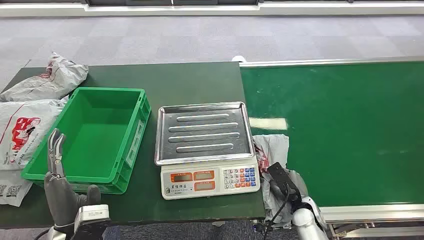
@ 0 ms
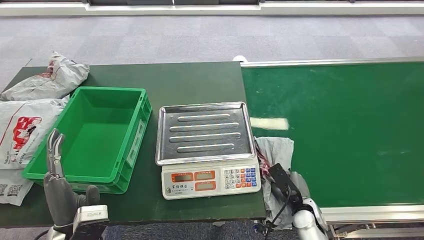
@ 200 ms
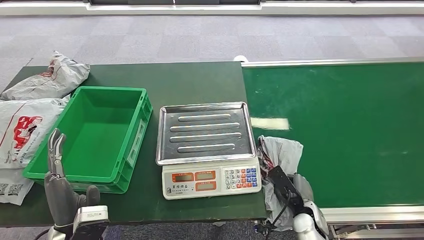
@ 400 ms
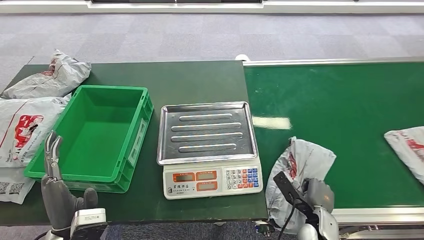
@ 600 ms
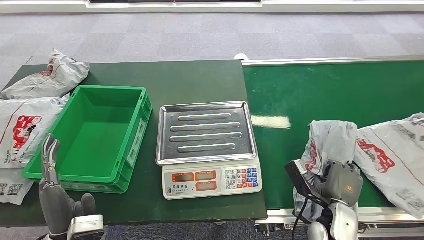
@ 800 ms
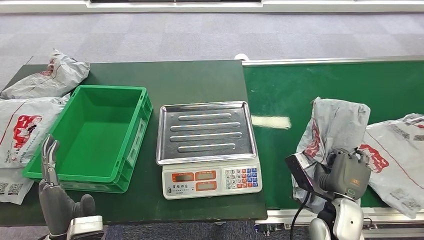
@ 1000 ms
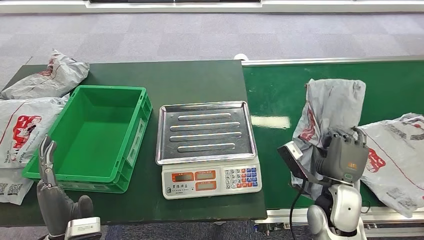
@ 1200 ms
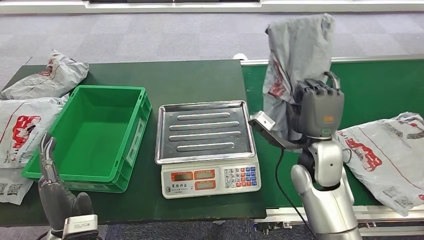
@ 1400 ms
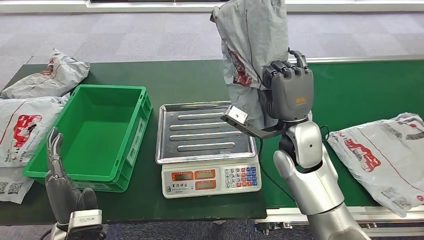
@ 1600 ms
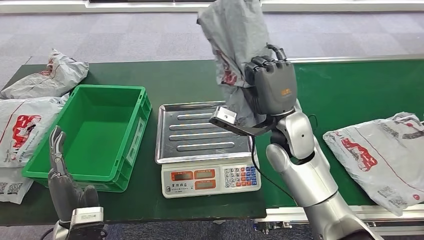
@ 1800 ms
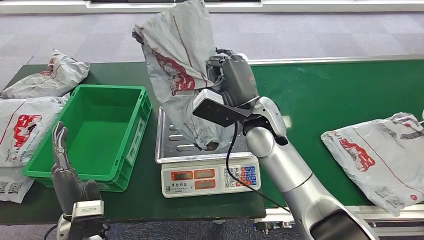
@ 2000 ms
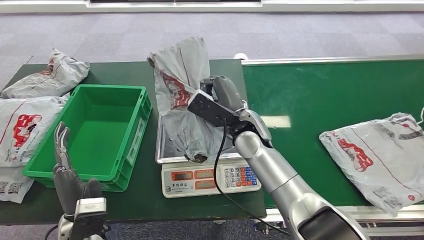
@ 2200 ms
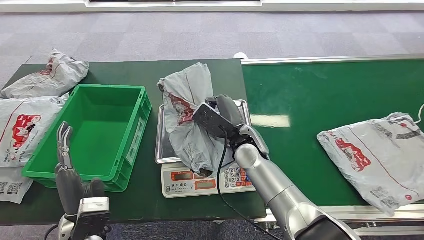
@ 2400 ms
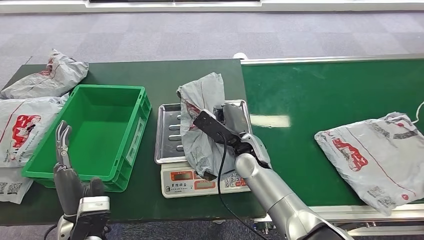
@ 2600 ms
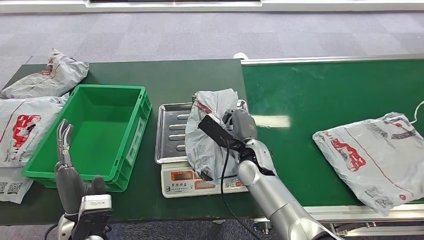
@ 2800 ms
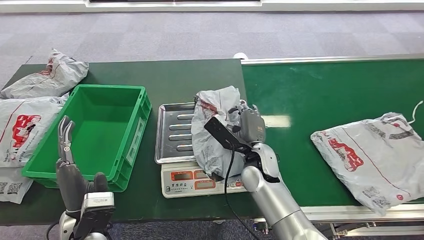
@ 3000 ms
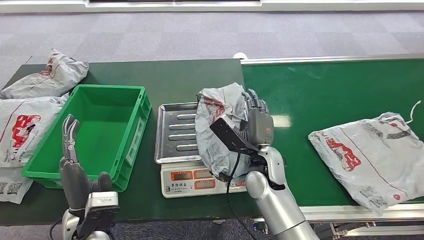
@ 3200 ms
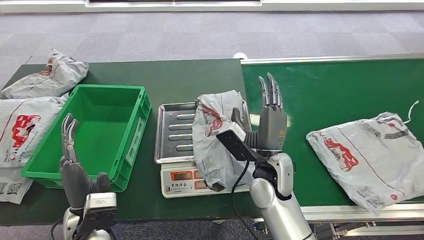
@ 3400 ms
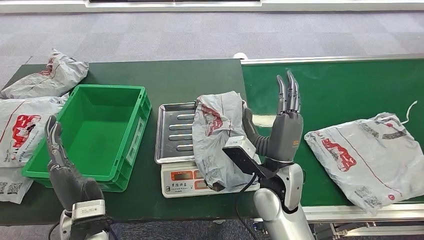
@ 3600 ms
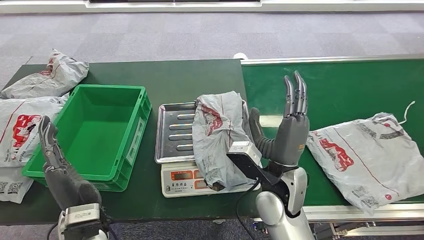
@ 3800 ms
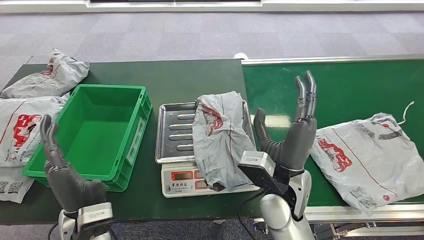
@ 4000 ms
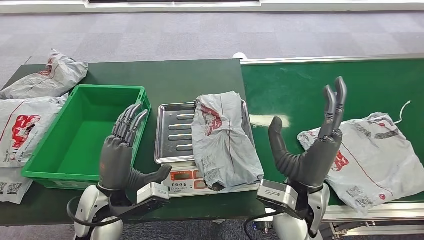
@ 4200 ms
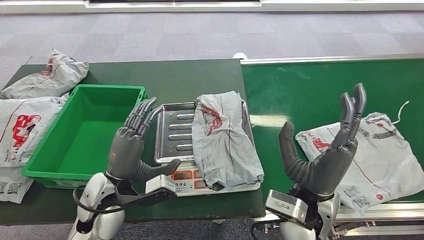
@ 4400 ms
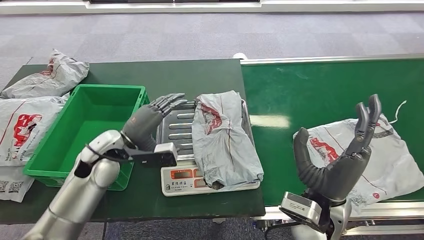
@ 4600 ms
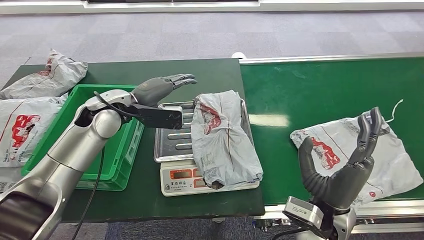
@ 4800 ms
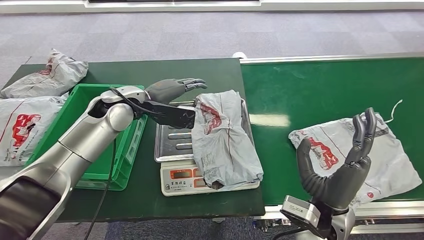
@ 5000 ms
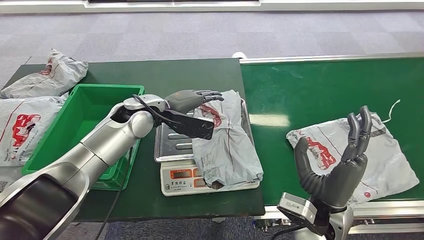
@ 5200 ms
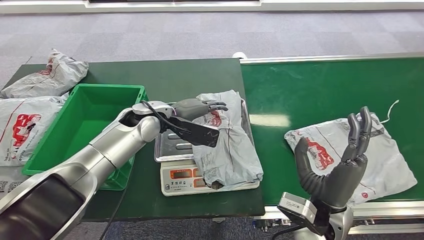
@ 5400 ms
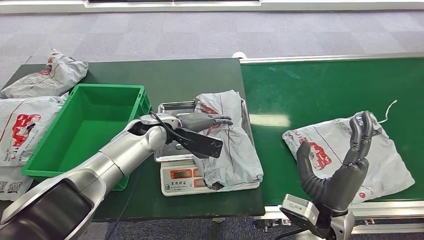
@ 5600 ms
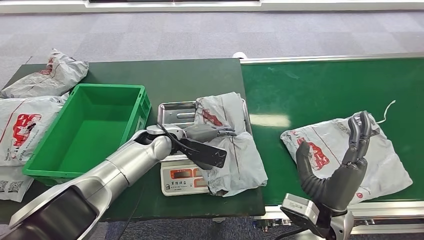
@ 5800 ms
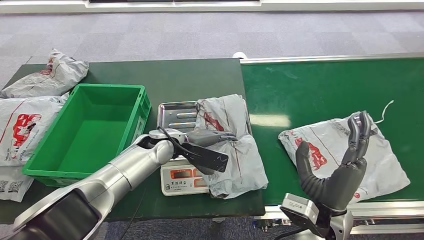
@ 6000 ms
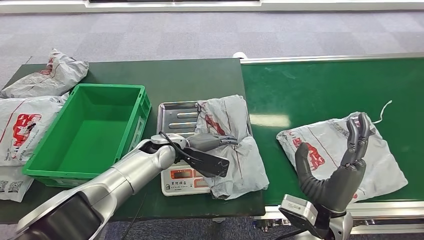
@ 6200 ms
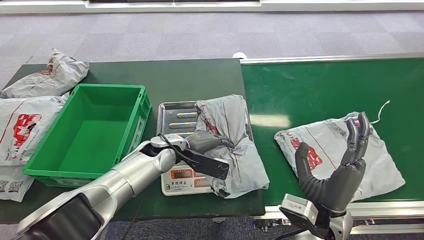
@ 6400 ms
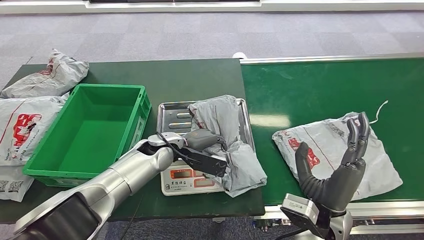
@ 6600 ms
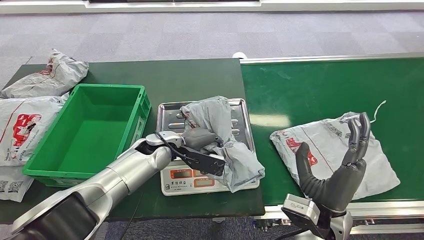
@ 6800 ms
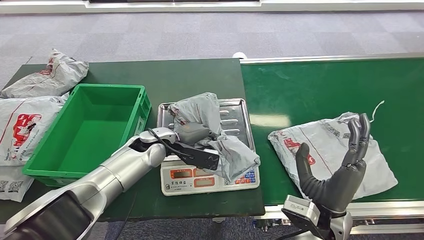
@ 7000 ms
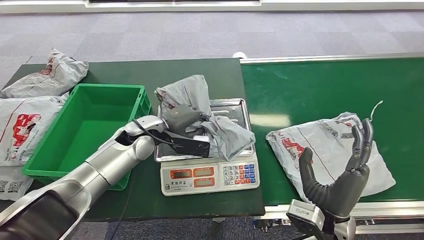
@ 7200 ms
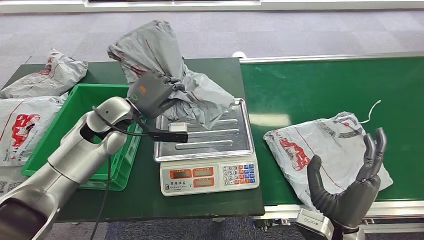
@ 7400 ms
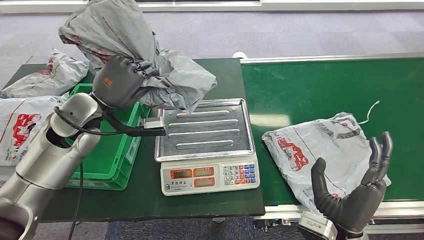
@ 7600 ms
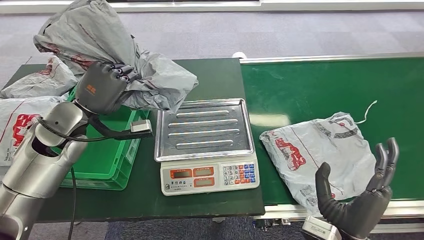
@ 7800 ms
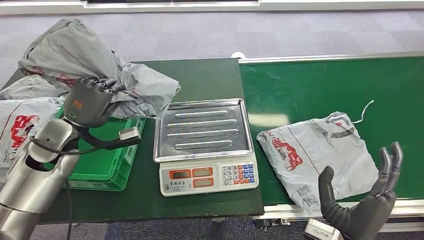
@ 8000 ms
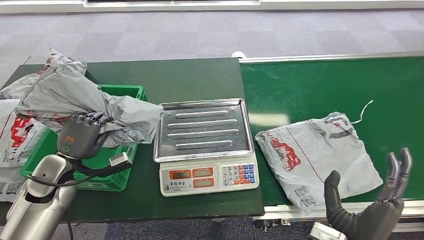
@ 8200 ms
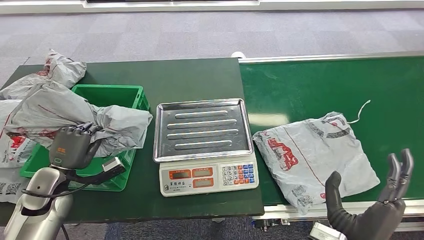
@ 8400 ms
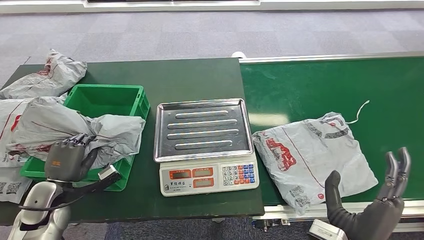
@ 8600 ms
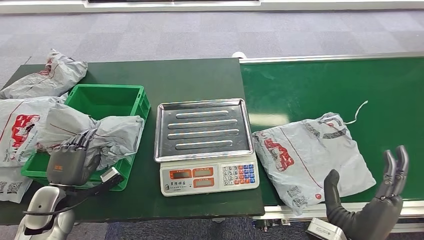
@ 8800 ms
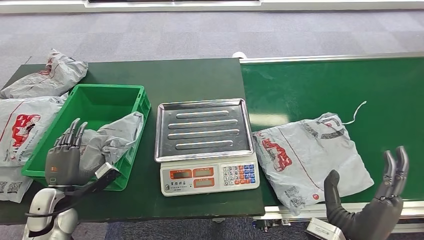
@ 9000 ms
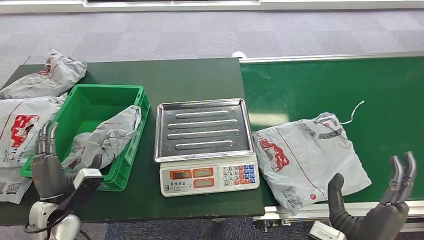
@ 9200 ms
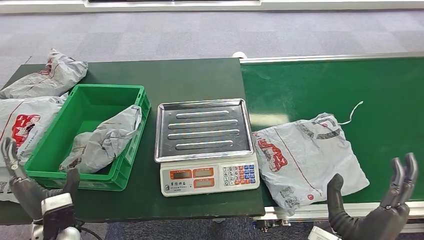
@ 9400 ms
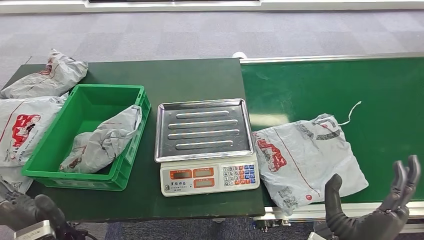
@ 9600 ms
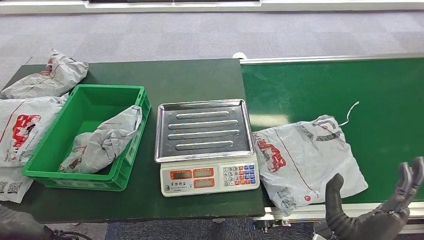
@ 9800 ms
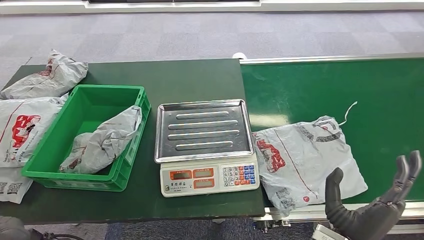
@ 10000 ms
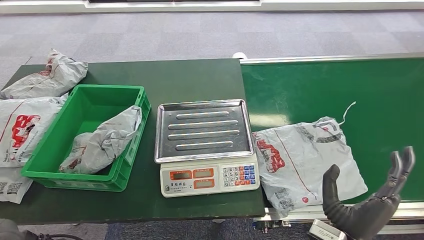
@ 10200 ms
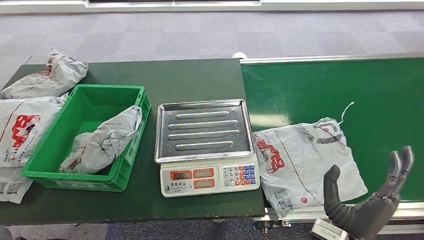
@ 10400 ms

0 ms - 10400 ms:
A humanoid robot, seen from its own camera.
Step, 0 ms - 1600 ms: Pick up the package from the conveyor belt.
Step, 1800 ms - 4400 ms: Place the package onto the inbound machine.
Step, 4600 ms - 8200 ms: Pick up the package from the inbound machine.
Step, 8600 ms - 10400 ms: Place the package into the parcel locker.
9000 ms - 10400 ms: The left hand shifts some 15 cm backward, to the right and upward.
